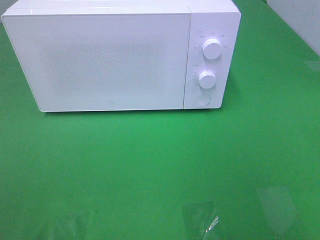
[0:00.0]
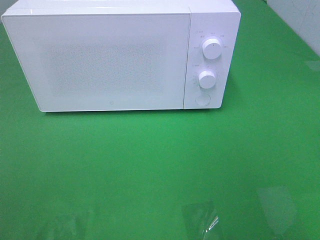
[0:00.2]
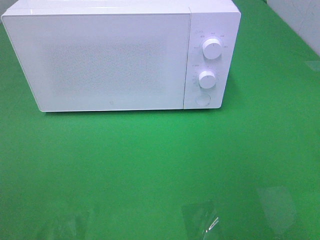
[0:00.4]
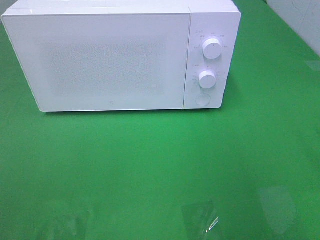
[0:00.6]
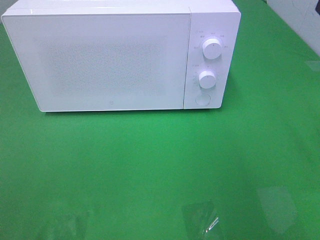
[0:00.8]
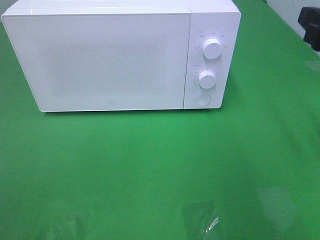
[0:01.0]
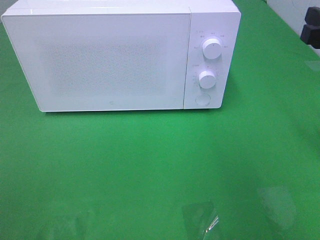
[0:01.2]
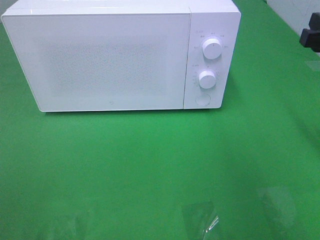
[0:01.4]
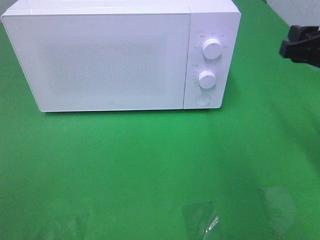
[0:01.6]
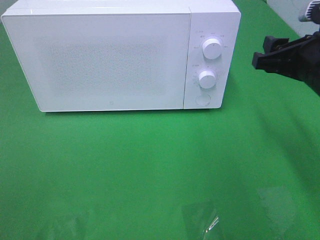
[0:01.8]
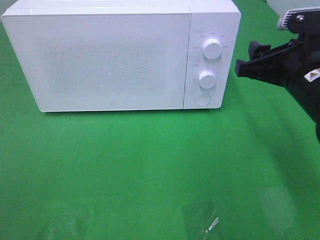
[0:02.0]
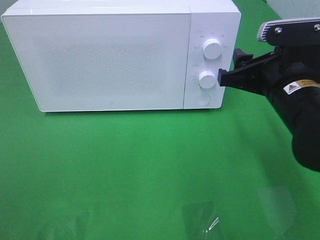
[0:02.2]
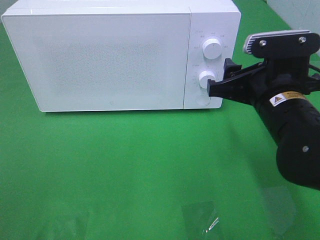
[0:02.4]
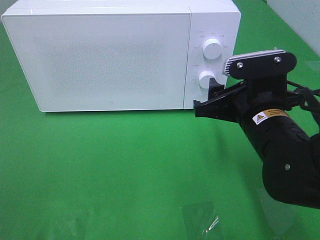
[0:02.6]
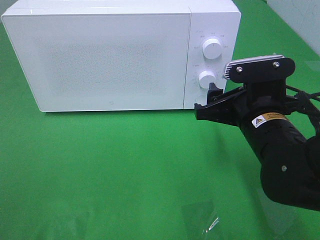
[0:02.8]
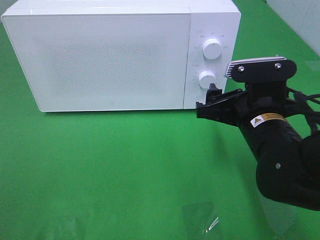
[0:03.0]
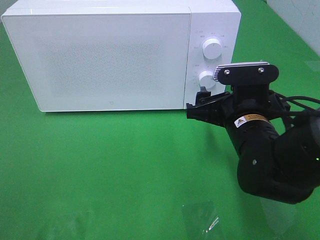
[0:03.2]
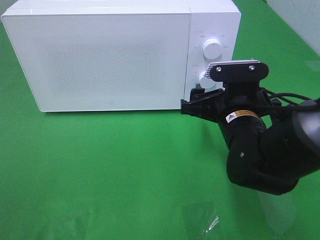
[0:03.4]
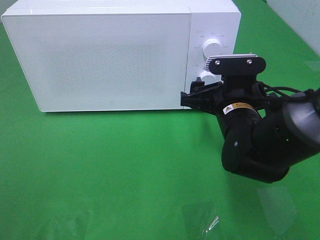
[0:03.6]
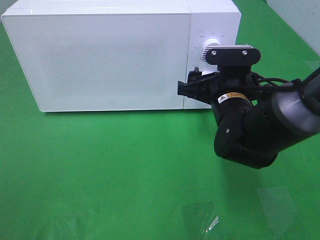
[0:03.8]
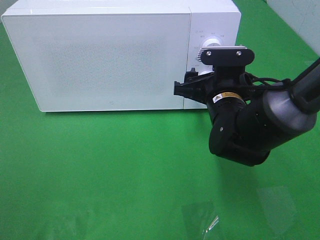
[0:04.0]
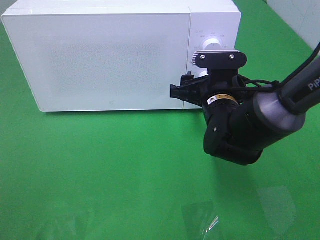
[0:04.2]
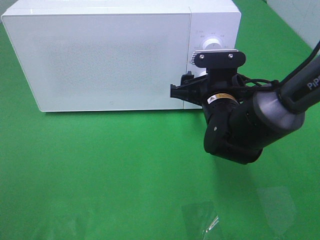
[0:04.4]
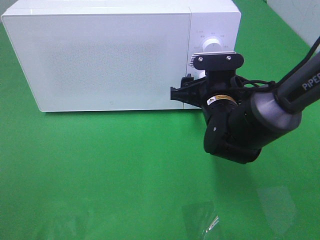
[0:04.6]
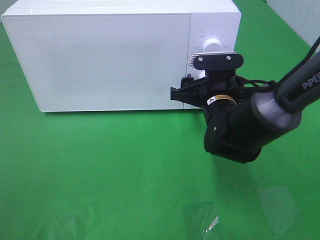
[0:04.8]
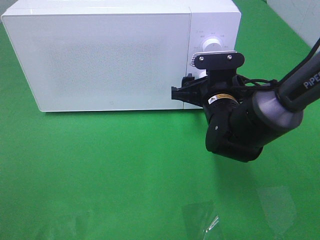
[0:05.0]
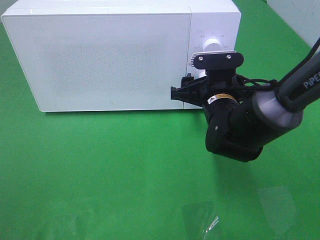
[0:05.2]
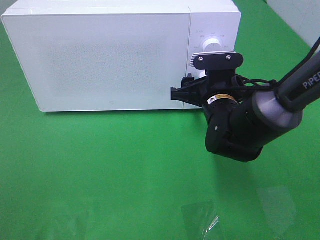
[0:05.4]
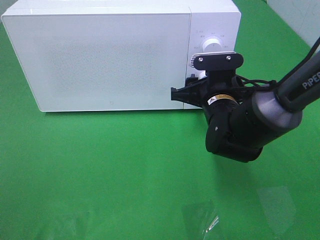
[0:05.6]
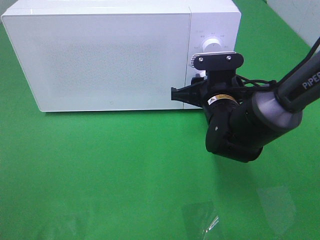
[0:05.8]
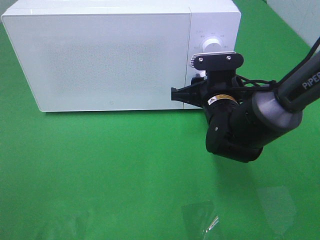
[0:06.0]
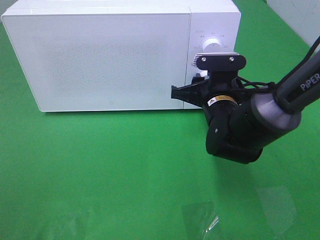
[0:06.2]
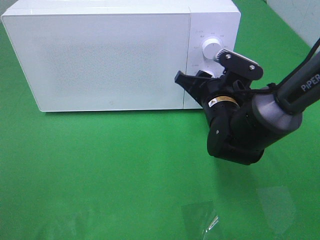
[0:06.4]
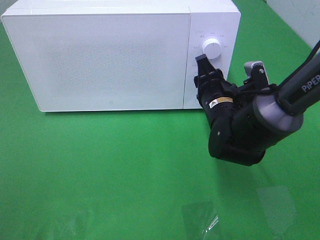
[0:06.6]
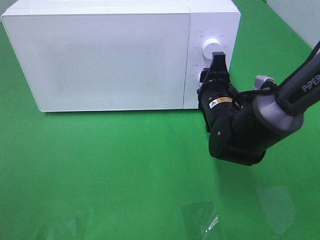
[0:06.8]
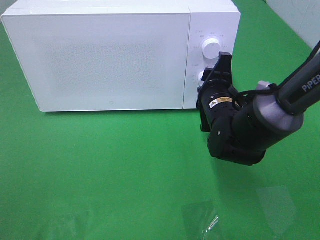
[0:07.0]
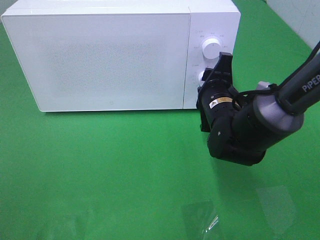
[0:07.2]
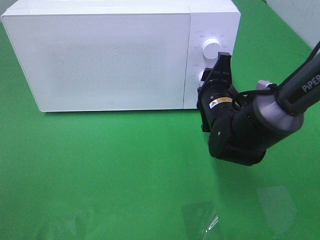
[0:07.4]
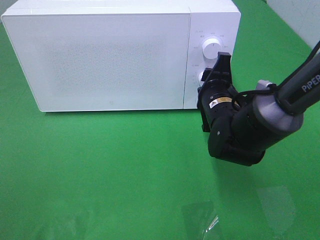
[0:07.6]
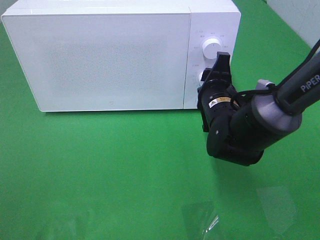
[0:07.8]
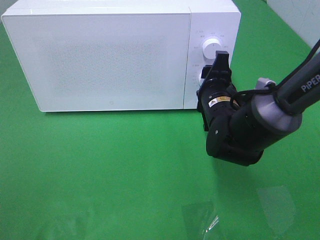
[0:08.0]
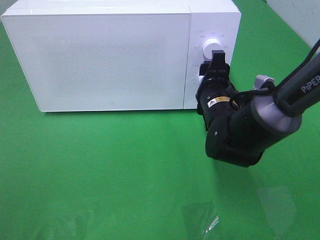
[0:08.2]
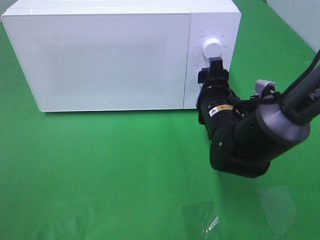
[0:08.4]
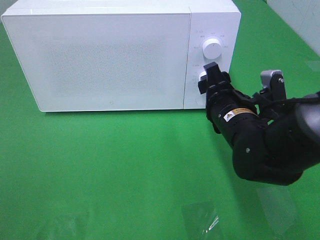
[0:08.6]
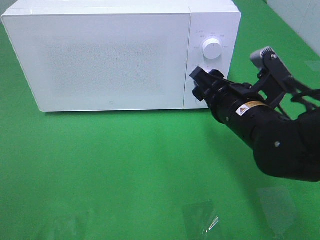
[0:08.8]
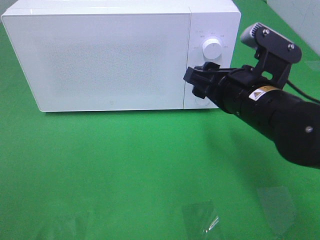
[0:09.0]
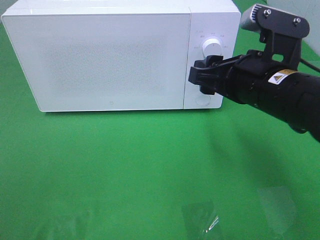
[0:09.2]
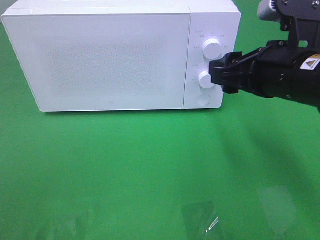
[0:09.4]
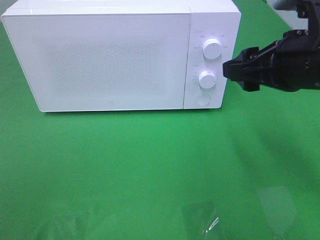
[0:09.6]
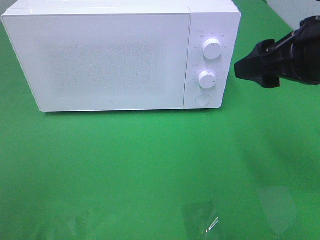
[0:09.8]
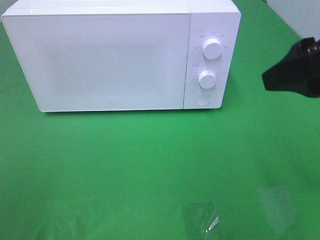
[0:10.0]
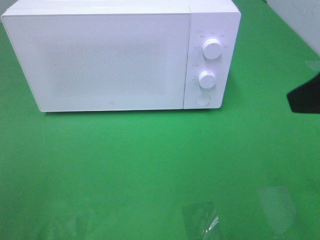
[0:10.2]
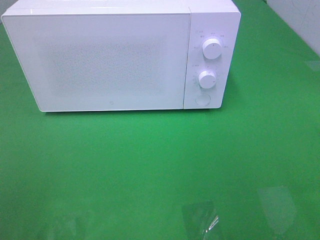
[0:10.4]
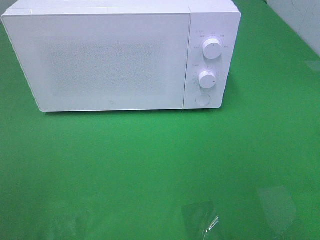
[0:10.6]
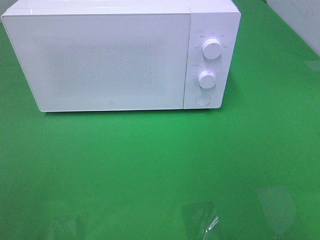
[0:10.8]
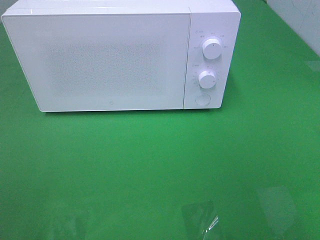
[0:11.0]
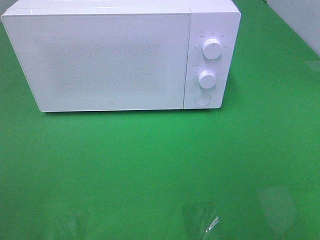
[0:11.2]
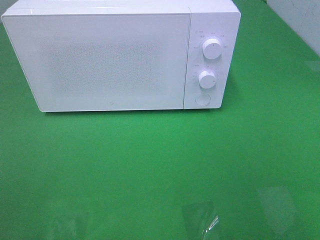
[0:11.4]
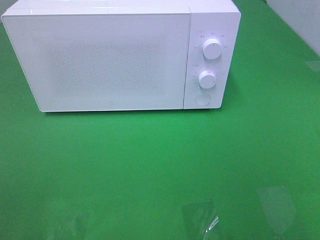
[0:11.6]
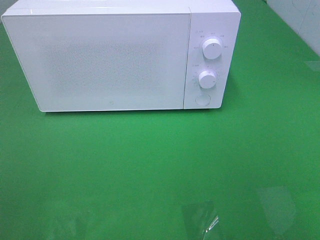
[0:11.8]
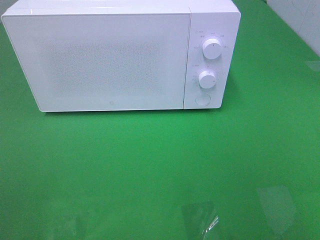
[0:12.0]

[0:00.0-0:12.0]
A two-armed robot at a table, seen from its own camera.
Task of the whole recording: Heat the burger.
Step, 0:00.0 to 0:07.8: Right hand: twist timer button.
0:00.0 to 0:01.6: The right gripper shifts some 20 cm forward and downward.
0:01.6 to 0:03.0: The right gripper moves to the left and downward, roughly 15 cm.
0:03.0 to 0:04.4: The right gripper travels forward by approximately 10 cm.
0:04.4 to 0:06.0: The right gripper closes.
0:07.6 to 0:09.0: The right gripper shifts approximately 10 cm backward and upward.
0:09.0 to 0:10.4: The right gripper is displaced upward, backward and to the right by about 25 cm.

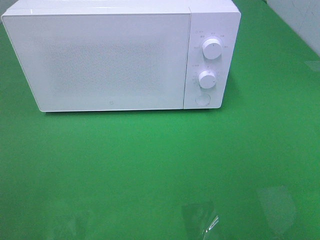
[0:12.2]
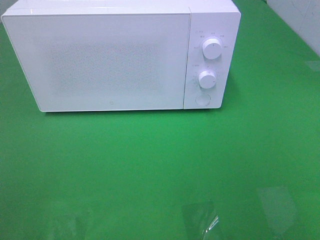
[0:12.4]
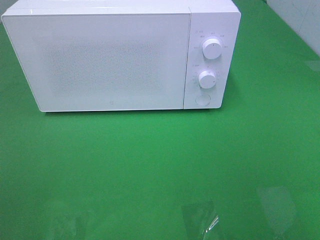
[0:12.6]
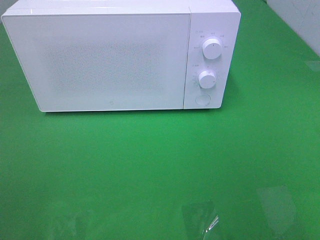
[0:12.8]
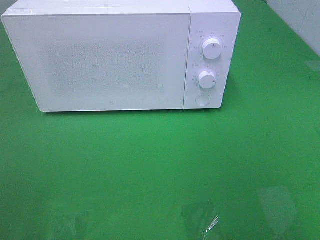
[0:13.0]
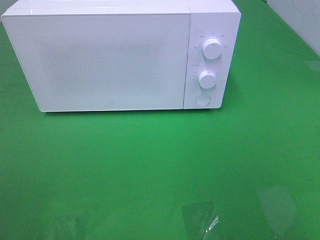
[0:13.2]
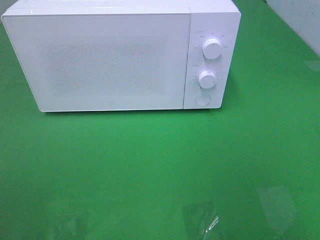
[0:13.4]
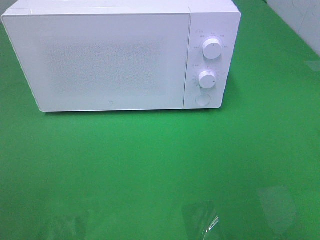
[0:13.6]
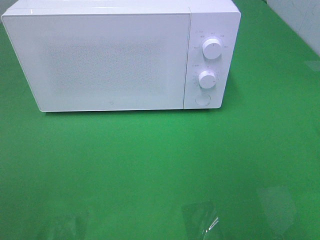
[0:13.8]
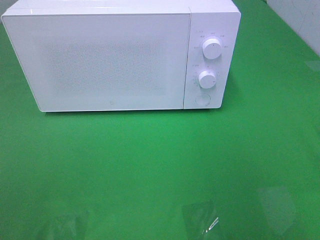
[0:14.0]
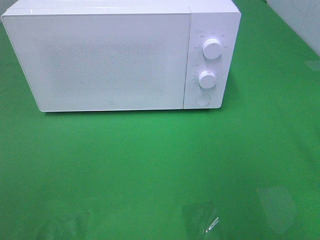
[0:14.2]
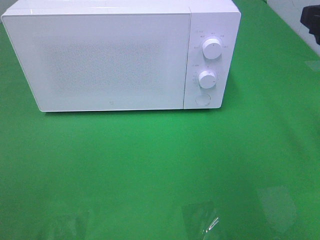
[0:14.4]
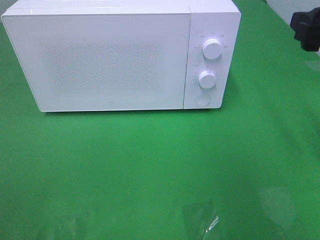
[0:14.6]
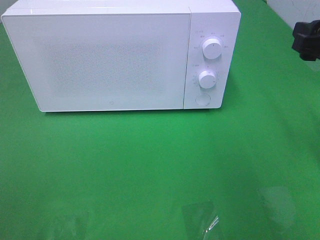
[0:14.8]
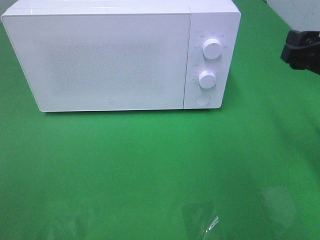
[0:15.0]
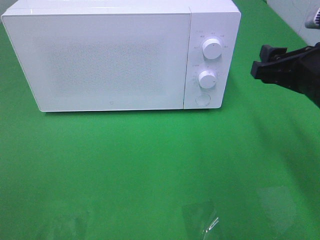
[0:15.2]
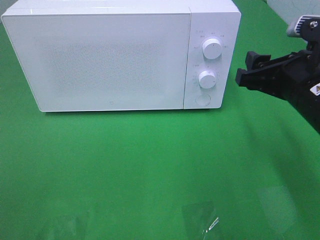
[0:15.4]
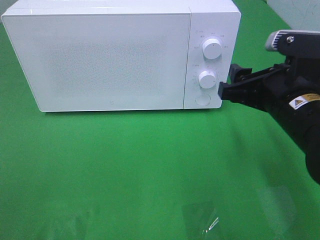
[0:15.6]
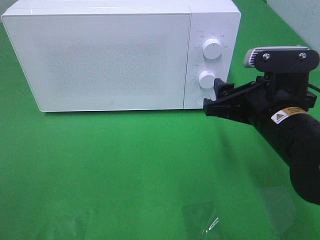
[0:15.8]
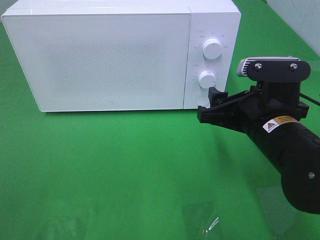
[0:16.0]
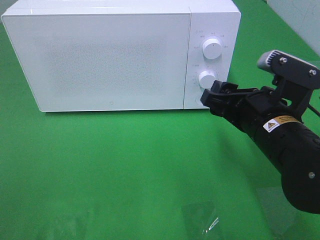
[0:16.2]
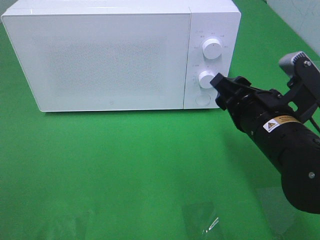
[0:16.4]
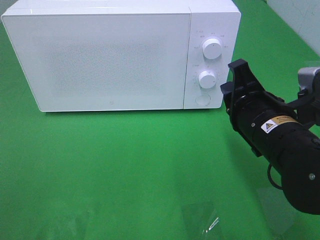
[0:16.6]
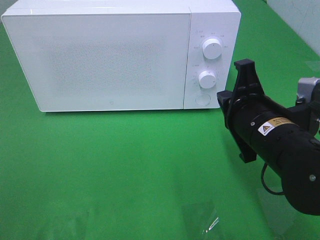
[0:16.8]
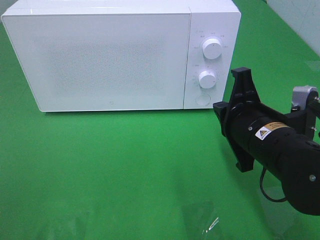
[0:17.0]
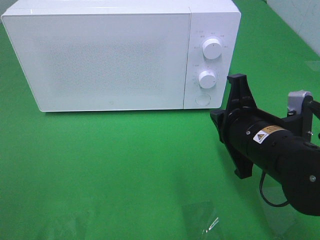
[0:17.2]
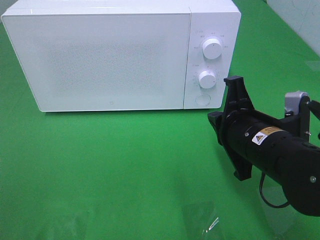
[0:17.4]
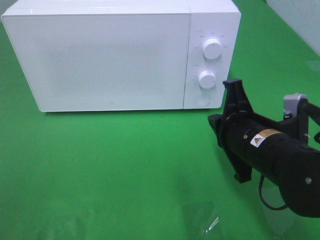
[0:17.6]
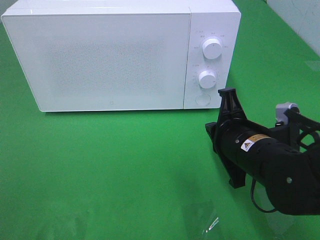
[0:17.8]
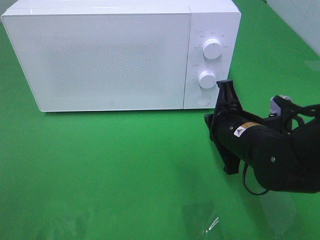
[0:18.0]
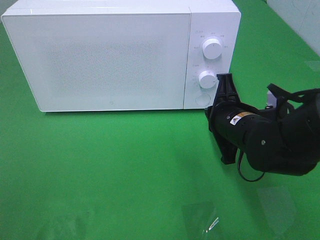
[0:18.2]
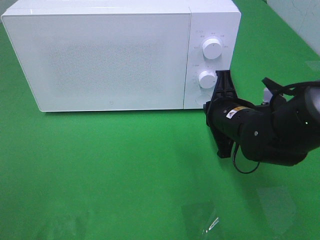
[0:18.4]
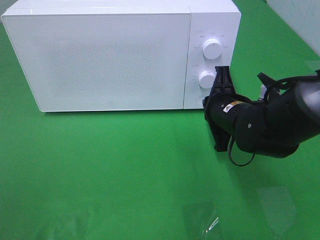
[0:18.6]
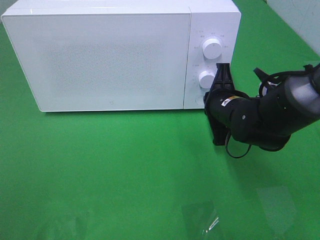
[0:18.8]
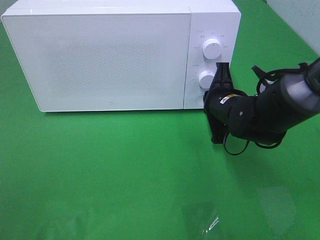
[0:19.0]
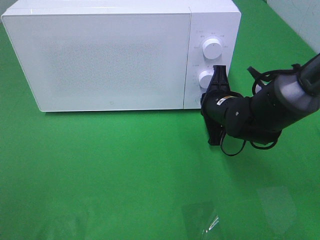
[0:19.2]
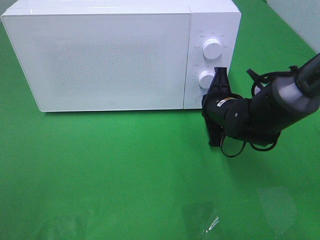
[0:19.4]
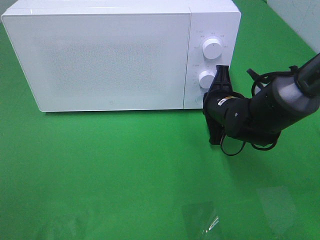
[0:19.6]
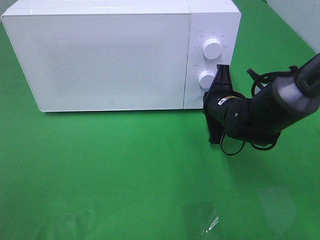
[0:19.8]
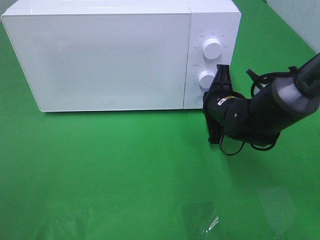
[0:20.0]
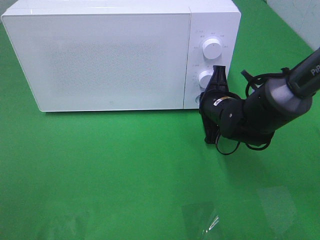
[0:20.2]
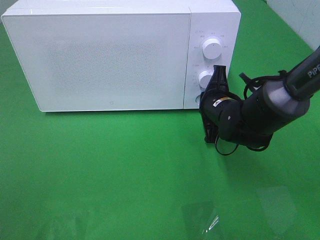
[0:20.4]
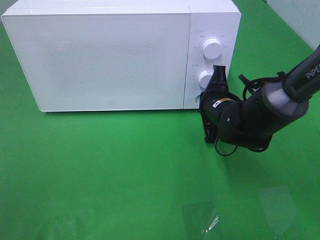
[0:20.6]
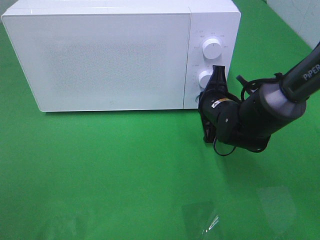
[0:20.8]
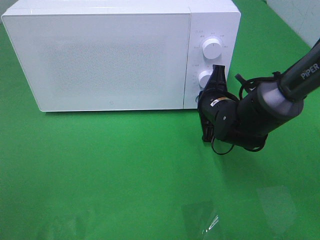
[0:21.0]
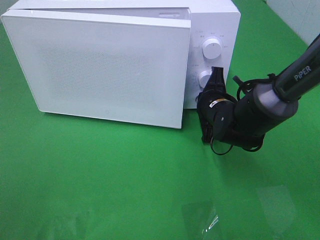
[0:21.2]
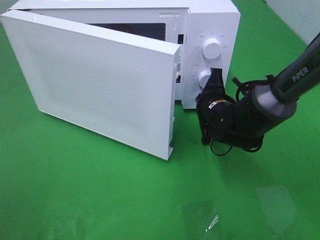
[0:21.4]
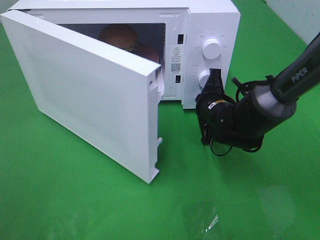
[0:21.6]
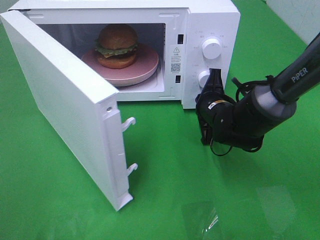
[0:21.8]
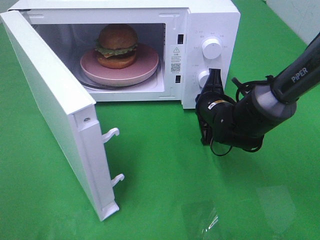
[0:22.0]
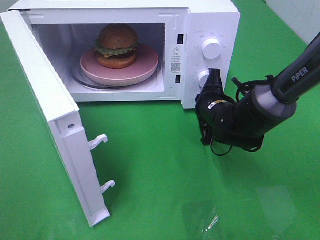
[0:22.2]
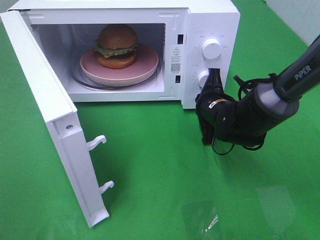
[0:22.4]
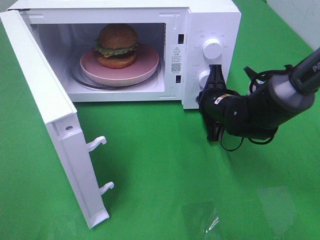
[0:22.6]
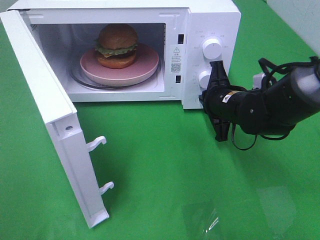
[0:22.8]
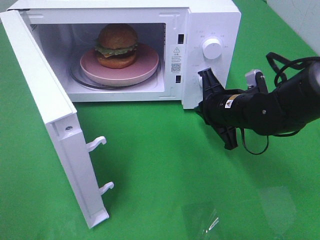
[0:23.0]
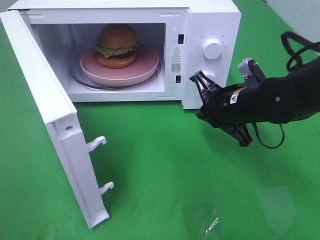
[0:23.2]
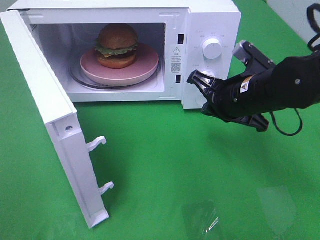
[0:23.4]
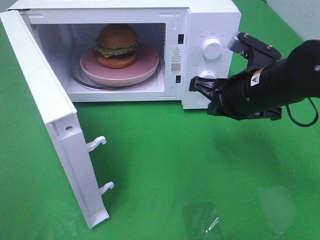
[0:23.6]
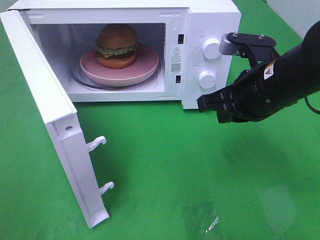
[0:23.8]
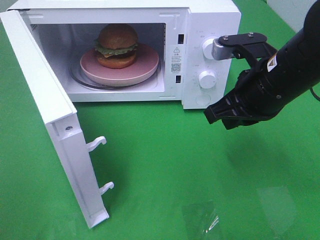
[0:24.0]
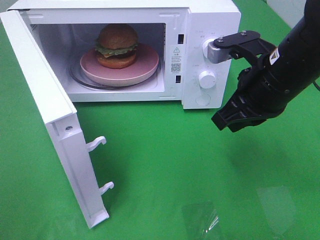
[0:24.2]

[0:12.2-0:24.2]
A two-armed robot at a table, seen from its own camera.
Task of the whole recording: Heat the burger.
Step, 0:12.2 to 0:22.8: Right hand: press the switch.
0:13.8 to 0:15.2: The right gripper travels downward, forward and to the left by approximately 15 cm.
0:15.2 to 0:16.6: The right gripper travels to the left by approximately 5 cm, and closes.
0:16.6 to 0:18.2: The right gripper travels forward by approximately 5 cm.
0:18.2 to 0:19.8: The right gripper goes approximately 5 cm forward.
0:19.8 to 0:21.2: The grippers make only small movements.
0:22.6 to 0:24.2: The right gripper heads upward and backward, covering about 15 cm.
